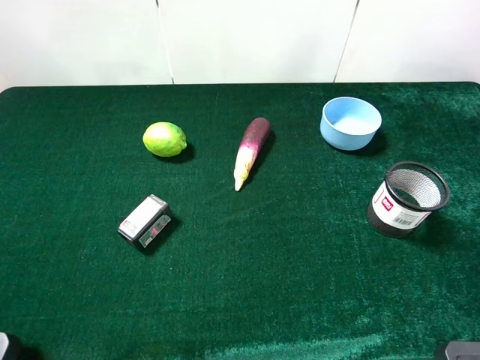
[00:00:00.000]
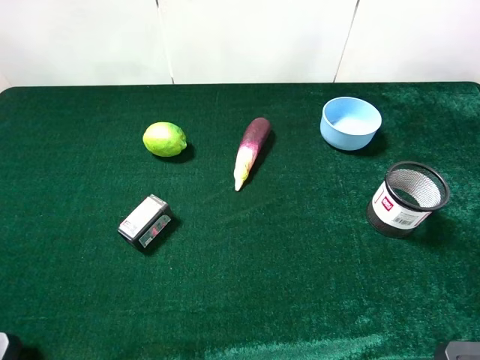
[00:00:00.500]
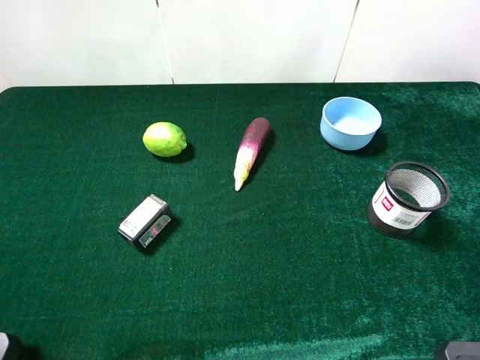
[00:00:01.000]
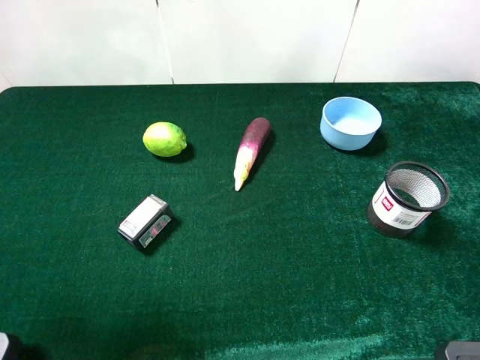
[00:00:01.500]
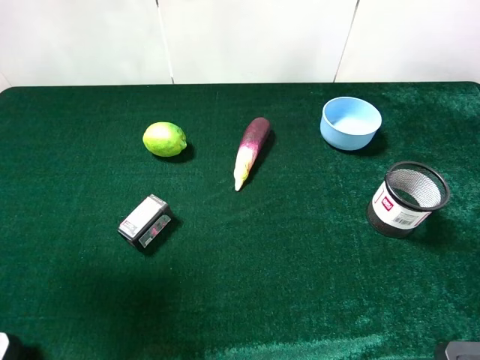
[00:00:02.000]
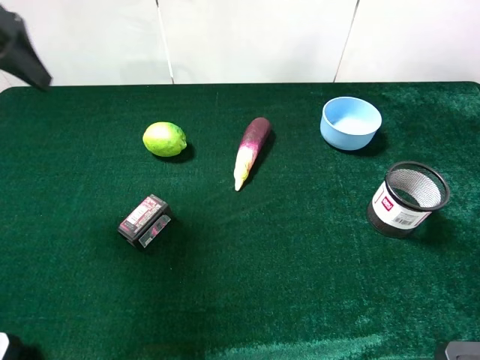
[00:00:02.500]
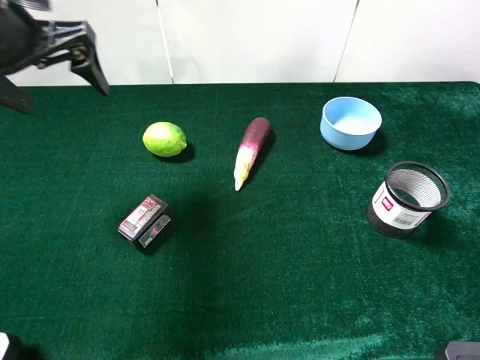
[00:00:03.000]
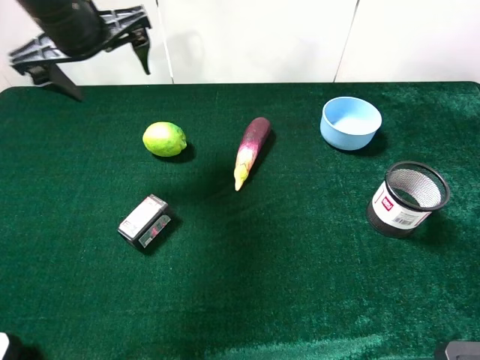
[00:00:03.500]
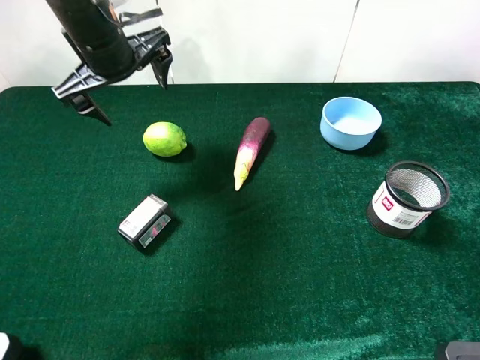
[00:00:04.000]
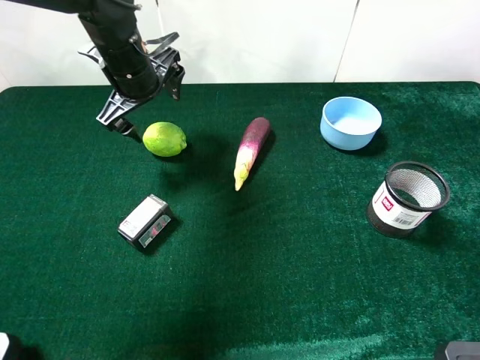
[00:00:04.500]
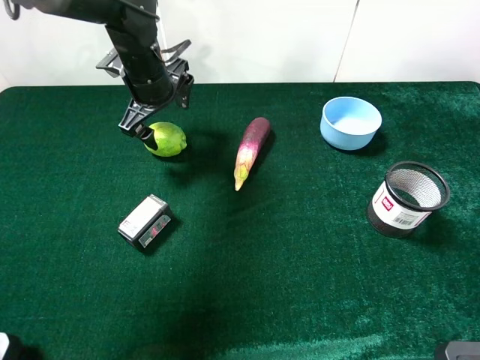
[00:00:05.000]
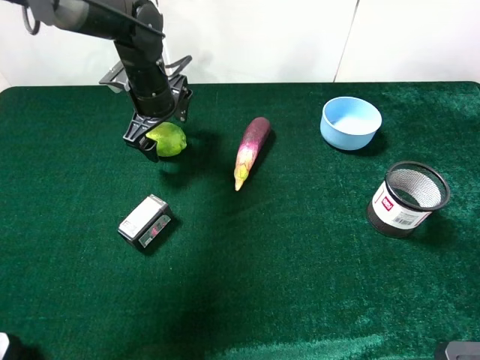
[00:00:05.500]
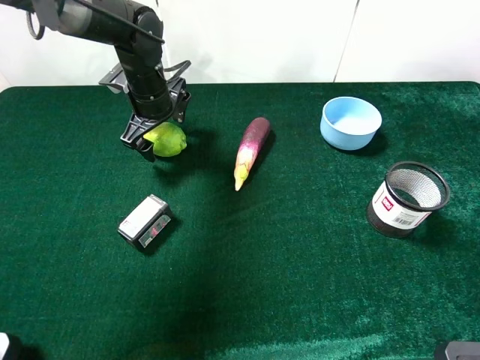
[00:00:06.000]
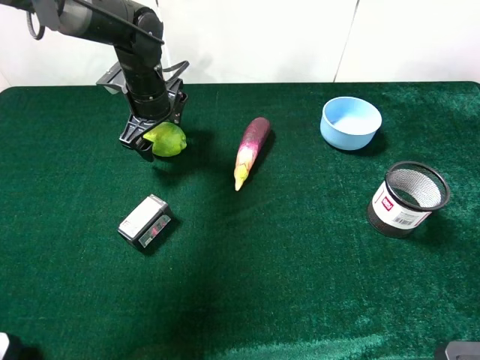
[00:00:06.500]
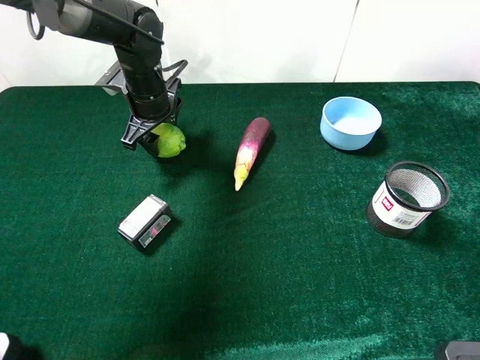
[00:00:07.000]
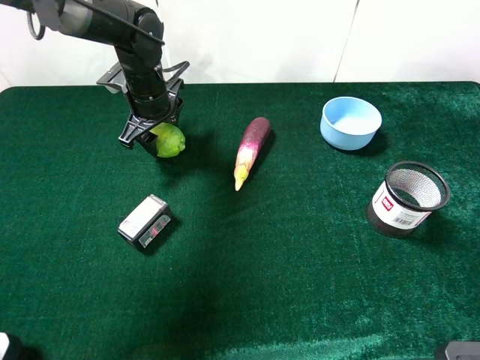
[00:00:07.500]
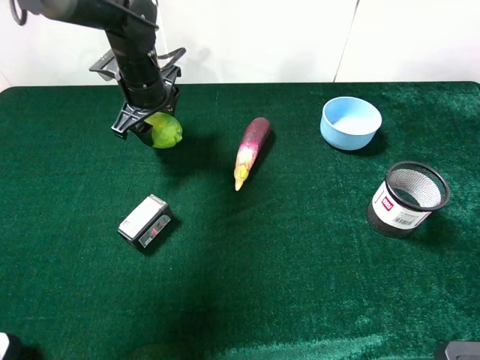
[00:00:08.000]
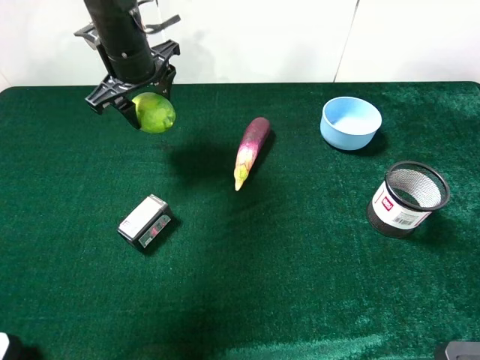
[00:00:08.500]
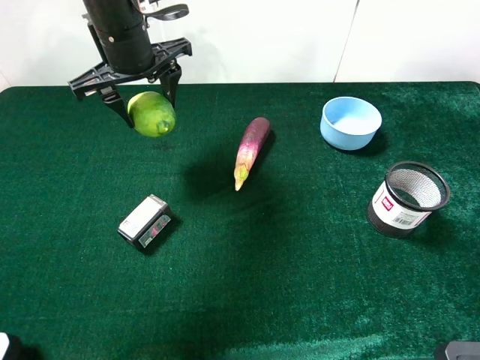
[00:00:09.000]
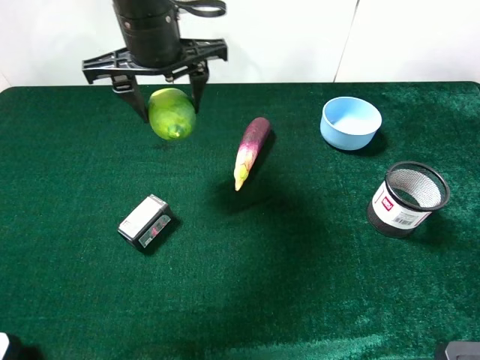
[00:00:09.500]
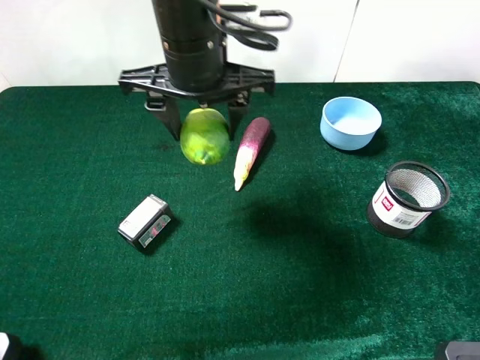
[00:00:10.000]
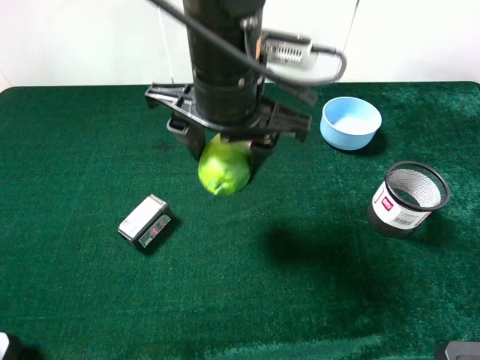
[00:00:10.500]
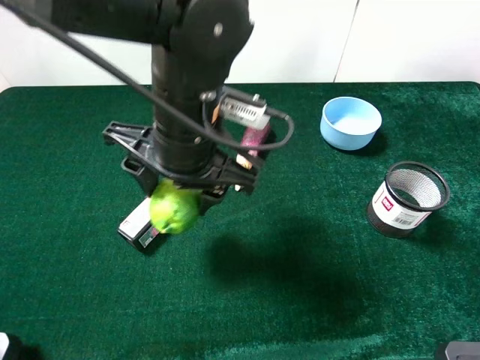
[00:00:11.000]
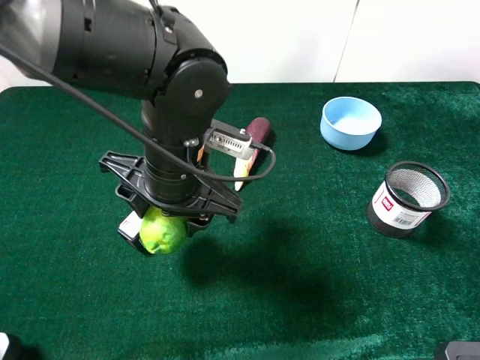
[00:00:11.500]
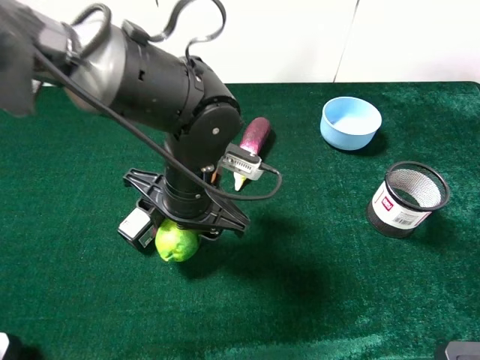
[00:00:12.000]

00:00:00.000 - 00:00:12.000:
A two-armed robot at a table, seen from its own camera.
Task of the whole recording: the gripper move the object.
Step, 00:00:00.000 - 00:00:07.500: Grasp the green lemon with the left gripper.
00:00:00.000 - 00:00:02.000: The left gripper heads forward, covering some 20 cm.
00:00:02.000 - 00:00:04.000: The left gripper goes some 25 cm forward, to the right and downward.
00:00:04.000 - 00:00:06.000: The left gripper is displaced downward and forward by roughly 10 cm.
00:00:06.000 - 00:00:08.000: The left gripper closes up.
00:00:08.000 - 00:00:10.000: The left gripper travels backward, to the right and upward by roughly 20 cm.
00:00:10.000 - 00:00:12.000: The left gripper moves downward and backward, some 15 cm.

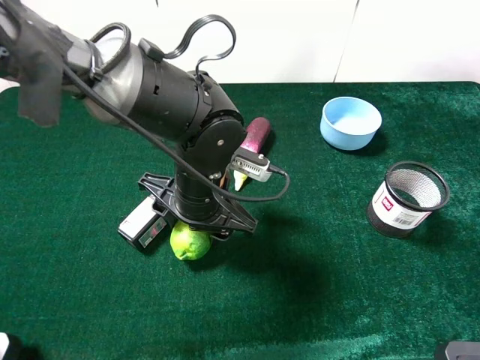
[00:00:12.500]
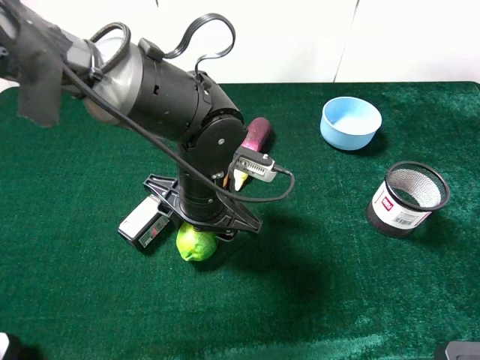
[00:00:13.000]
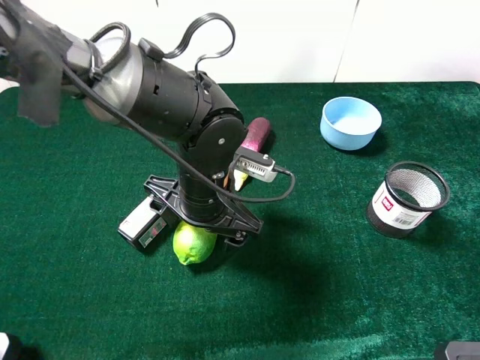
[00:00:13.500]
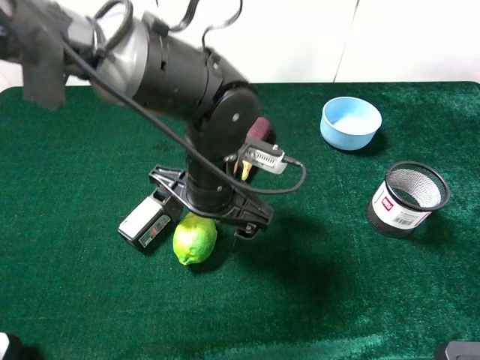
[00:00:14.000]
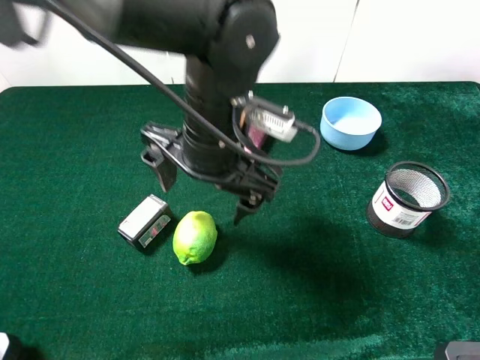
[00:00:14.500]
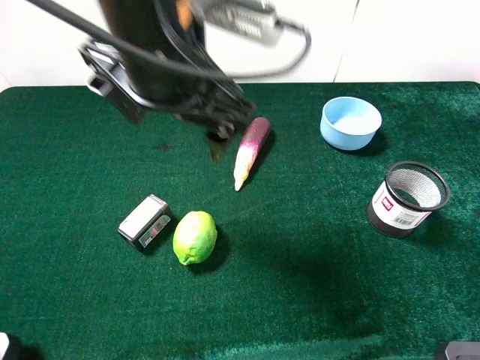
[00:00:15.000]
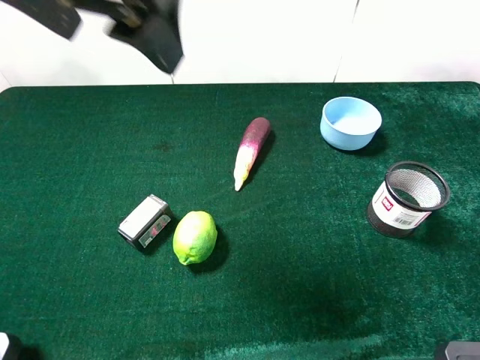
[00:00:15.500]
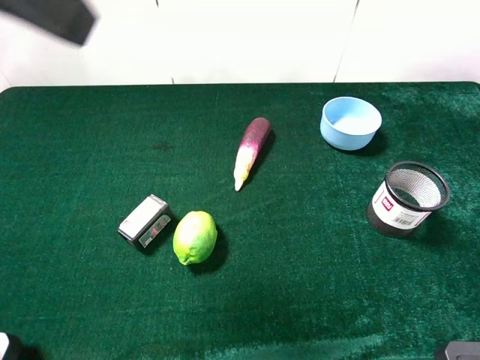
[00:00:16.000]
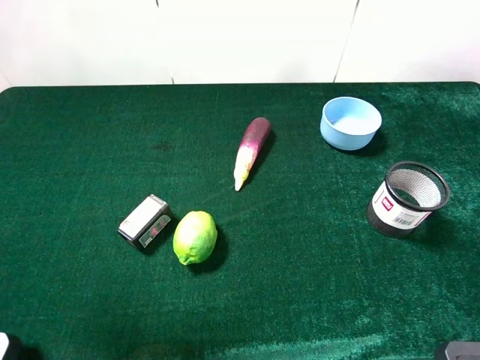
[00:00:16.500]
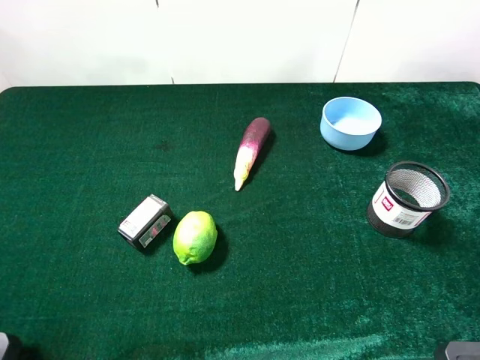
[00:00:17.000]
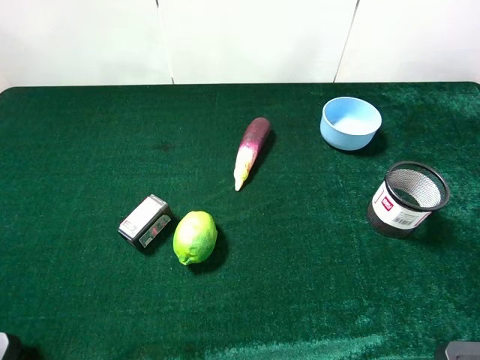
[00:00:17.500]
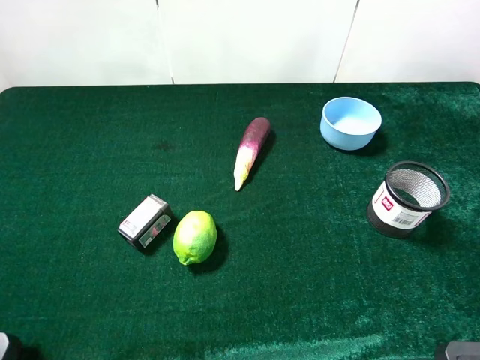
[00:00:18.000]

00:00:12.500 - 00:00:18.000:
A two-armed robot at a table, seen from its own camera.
Task of the whole recording: the gripper move the object.
00:00:12.500 - 00:00:14.500: The left gripper heads upward, covering about 10 cm, and opens.
00:00:14.500 - 00:00:16.000: The left gripper is displaced upward, to the left and backward by roughly 30 cm.
00:00:16.000 - 00:00:18.000: The left gripper travels downward, to the left and backward by roughly 25 cm.
